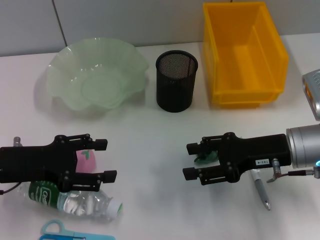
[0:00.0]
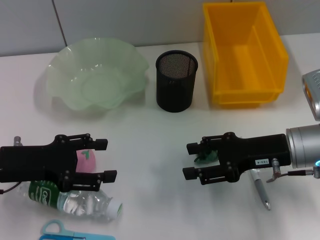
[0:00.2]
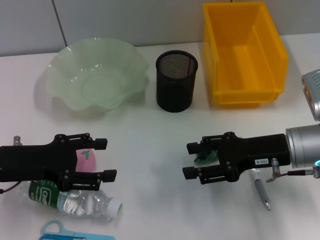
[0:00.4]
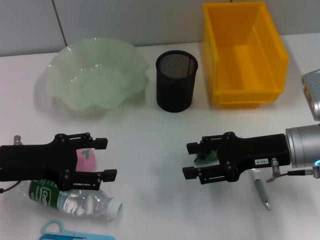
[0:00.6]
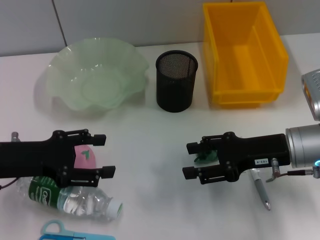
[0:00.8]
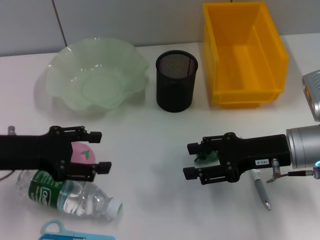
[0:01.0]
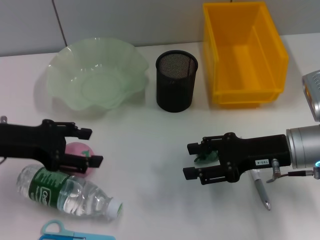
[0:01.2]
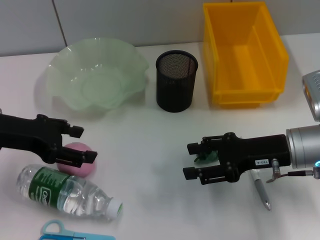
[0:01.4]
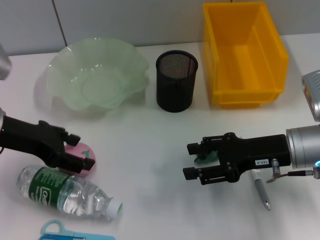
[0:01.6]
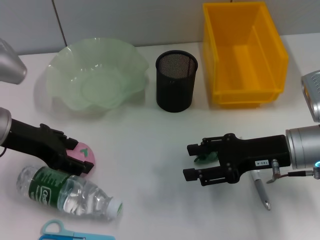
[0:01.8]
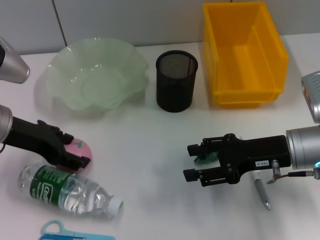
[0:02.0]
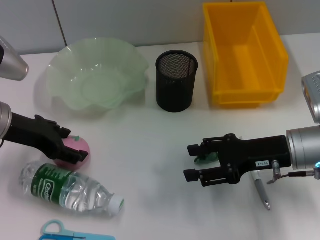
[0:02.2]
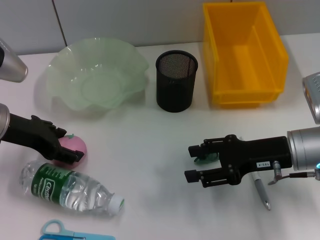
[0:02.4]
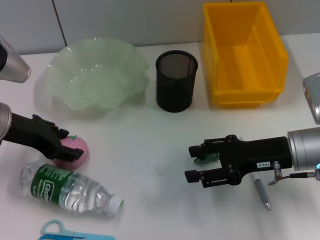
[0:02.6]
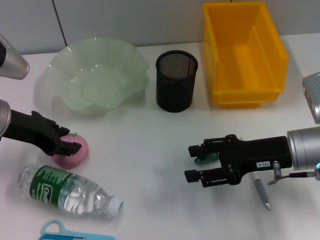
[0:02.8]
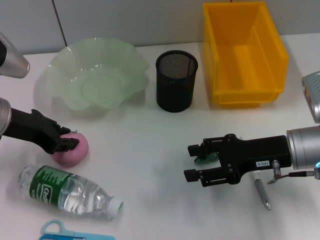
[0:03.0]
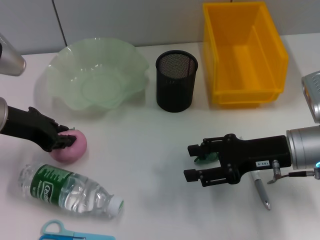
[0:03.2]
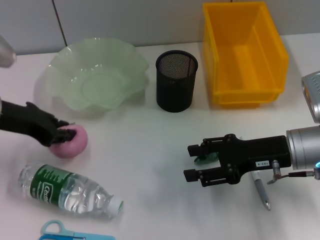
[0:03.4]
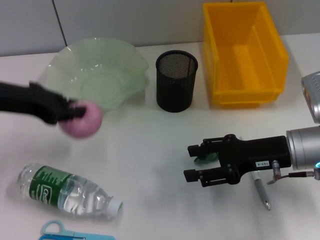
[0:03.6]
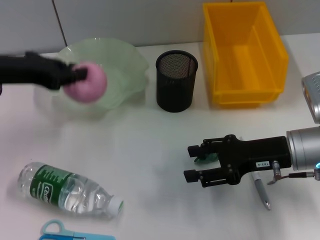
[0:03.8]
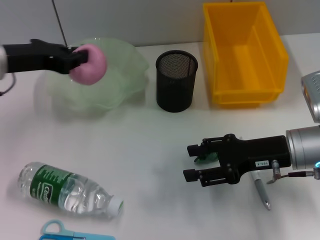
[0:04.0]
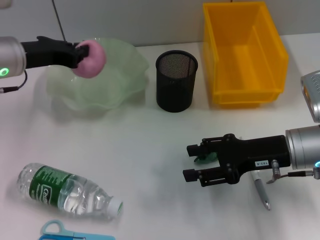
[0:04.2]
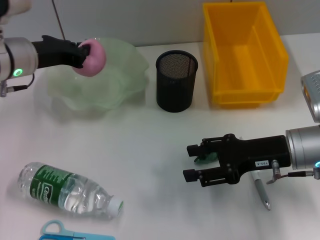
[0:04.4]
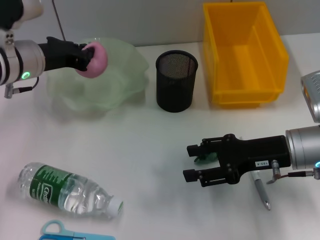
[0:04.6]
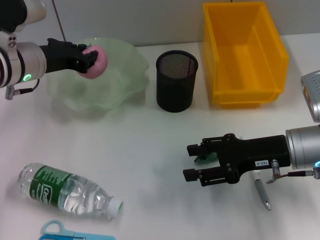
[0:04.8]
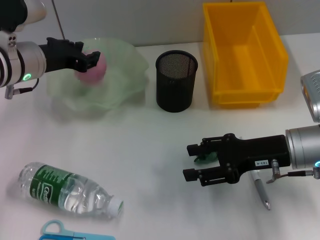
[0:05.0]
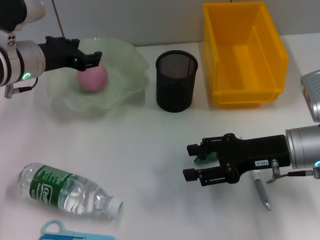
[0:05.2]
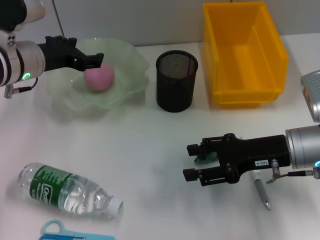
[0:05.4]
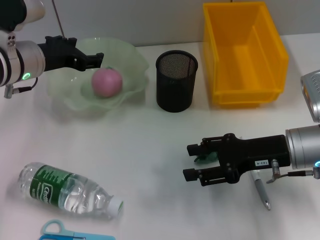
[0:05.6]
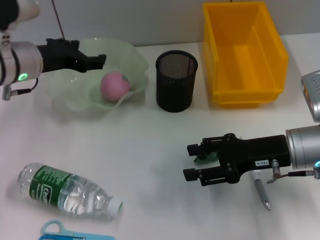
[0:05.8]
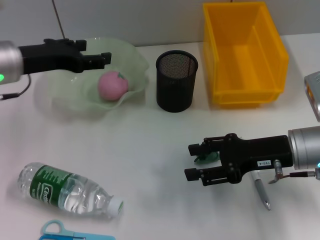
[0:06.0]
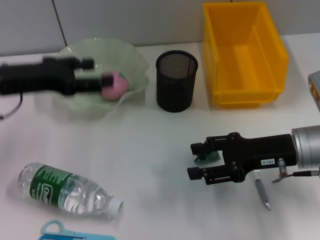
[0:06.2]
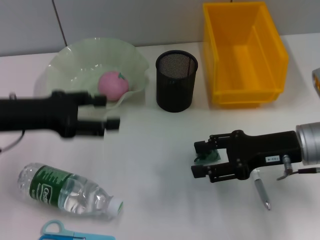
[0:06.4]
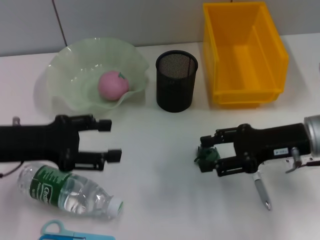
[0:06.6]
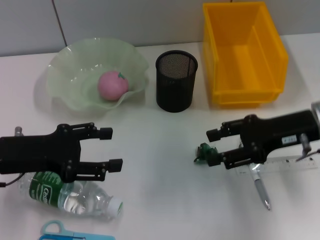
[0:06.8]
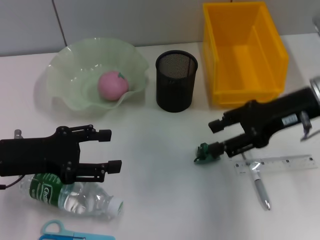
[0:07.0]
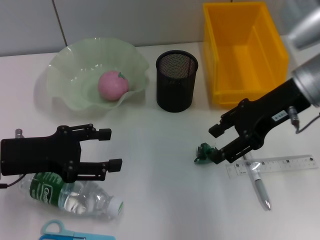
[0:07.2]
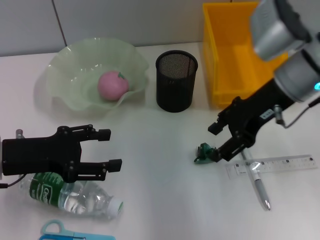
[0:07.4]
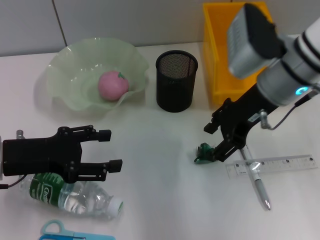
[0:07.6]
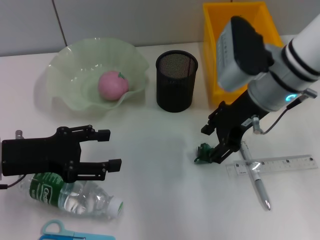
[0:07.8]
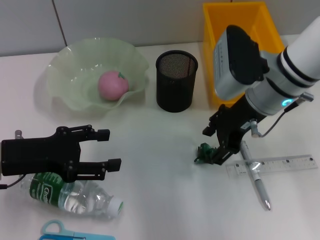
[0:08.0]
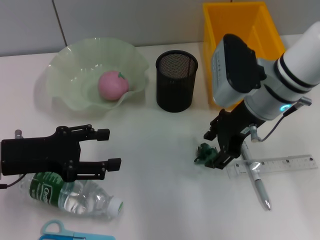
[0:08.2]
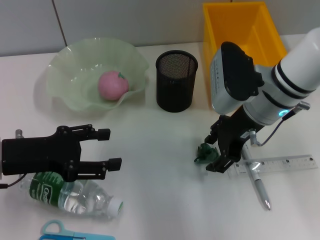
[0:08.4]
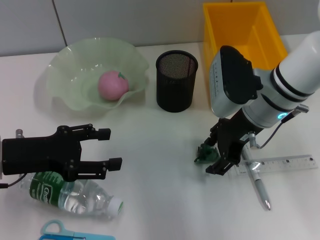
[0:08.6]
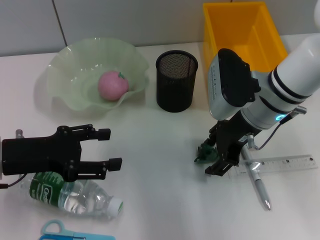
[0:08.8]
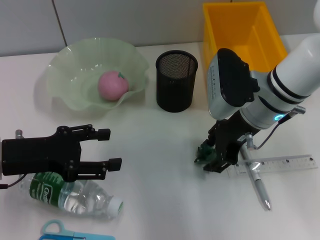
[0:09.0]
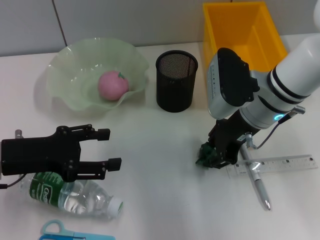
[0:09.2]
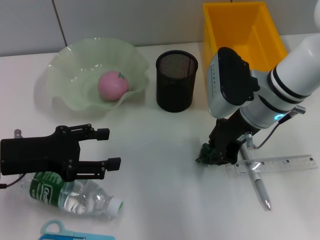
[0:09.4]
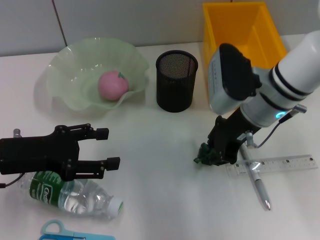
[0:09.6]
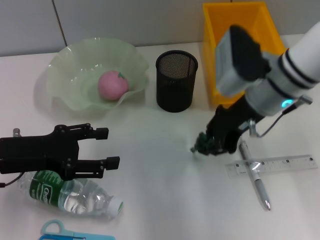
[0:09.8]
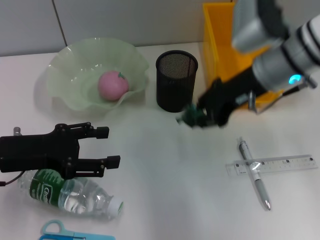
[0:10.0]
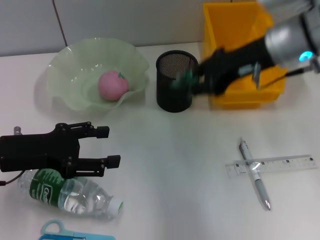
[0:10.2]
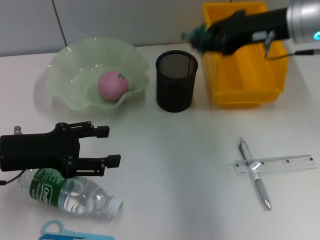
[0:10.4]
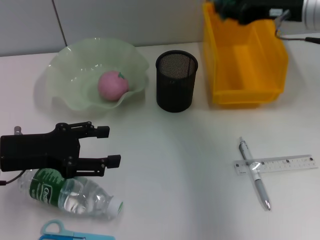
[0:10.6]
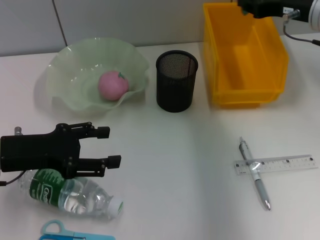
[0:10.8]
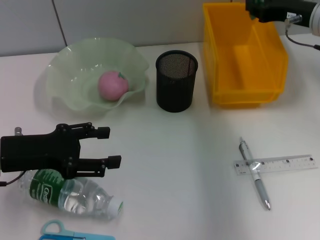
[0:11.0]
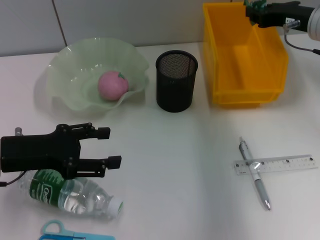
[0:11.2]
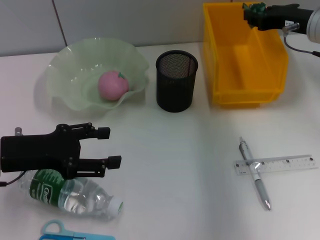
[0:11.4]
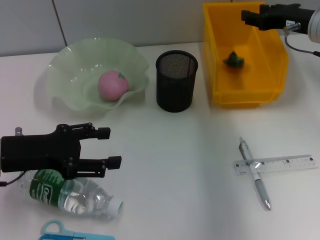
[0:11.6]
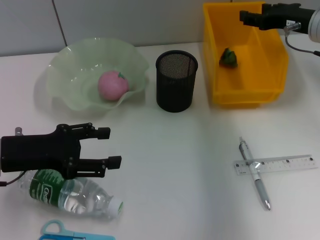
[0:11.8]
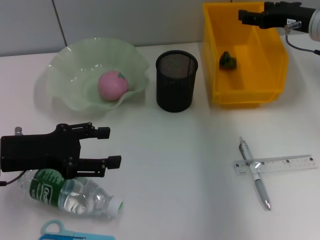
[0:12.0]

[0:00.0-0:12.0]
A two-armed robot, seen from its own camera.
Step, 0:00.0 to 0:02.8: Grab the peach with the left hand.
Step, 0:03.2 to 0:05.2: Place the peach into the fruit bowl with the left hand.
Step, 0:05.4 to 0:09.2: Grab the plastic with the right hand.
Step, 0:09.4 to 0:12.0: Place the plastic into the trash can with the right hand.
0:00.0 to 0:01.6: The left gripper moves upward, roughly 5 cm.
0:01.6 to 0:03.0: The left gripper closes.
0:03.0 to 0:04.4: The left gripper goes about 5 cm forward, and closes.
0:04.4 to 0:06.0: The left gripper opens.
0:06.0 to 0:07.6: The right gripper shifts some 15 cm upward, forward and to the left; the left gripper moves backward and downward, about 10 cm.
0:07.6 to 0:09.0: The right gripper shifts by roughly 5 cm.
0:09.0 to 0:10.4: The right gripper travels upward and to the right by approximately 10 cm, and closes its fingers.
0:10.4 to 0:12.0: The right gripper heads to the right and downward, covering about 10 cm, and opens its fingers.

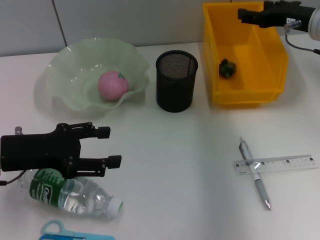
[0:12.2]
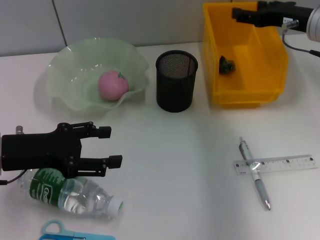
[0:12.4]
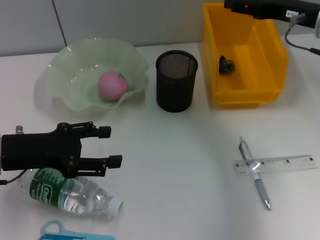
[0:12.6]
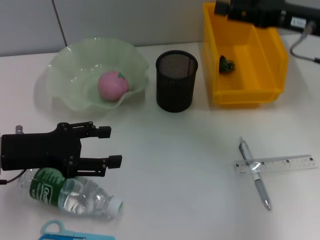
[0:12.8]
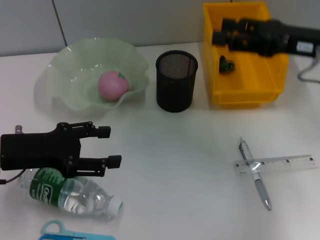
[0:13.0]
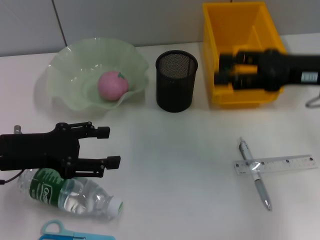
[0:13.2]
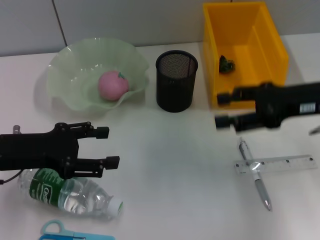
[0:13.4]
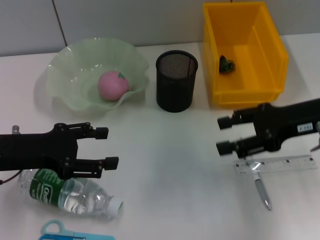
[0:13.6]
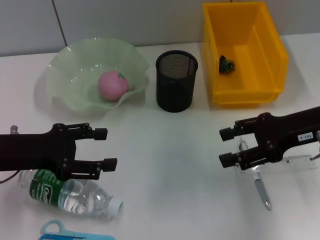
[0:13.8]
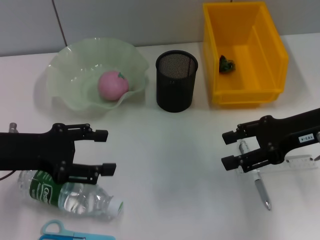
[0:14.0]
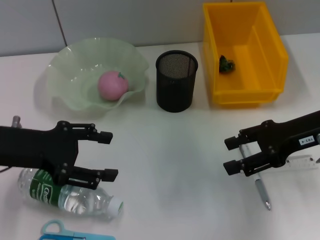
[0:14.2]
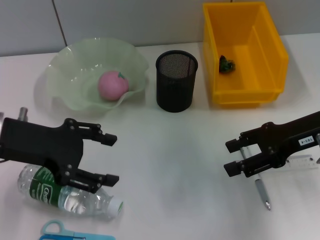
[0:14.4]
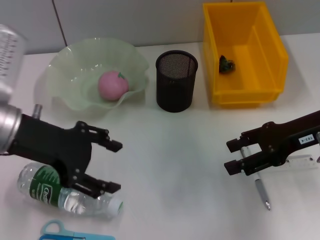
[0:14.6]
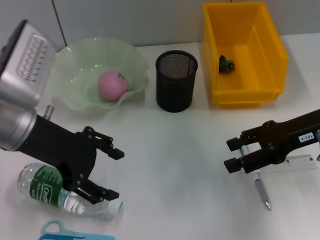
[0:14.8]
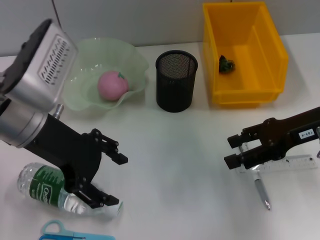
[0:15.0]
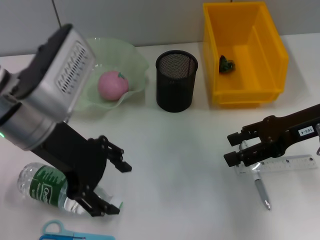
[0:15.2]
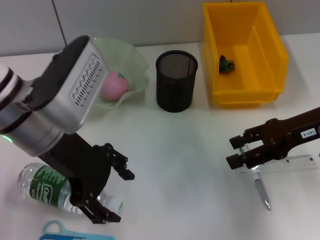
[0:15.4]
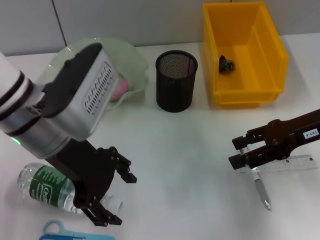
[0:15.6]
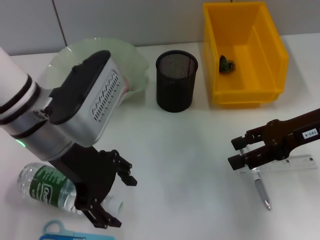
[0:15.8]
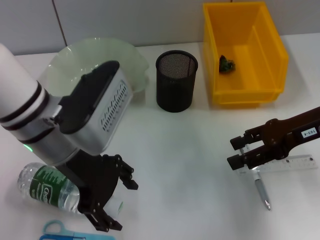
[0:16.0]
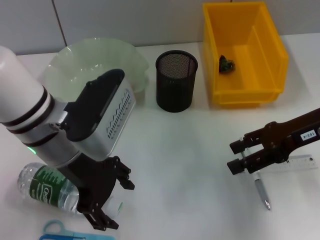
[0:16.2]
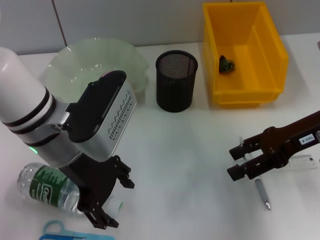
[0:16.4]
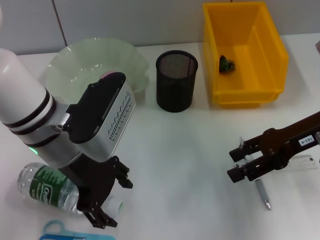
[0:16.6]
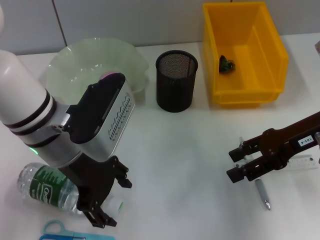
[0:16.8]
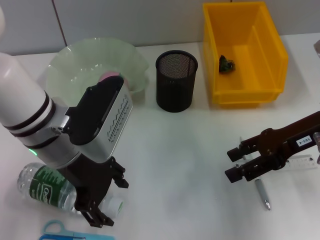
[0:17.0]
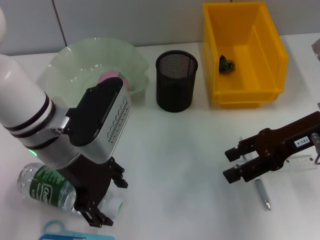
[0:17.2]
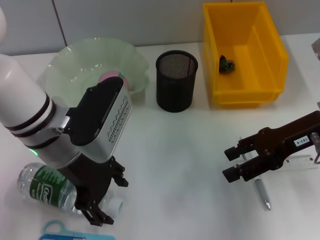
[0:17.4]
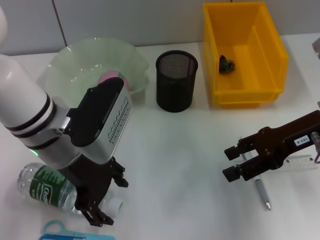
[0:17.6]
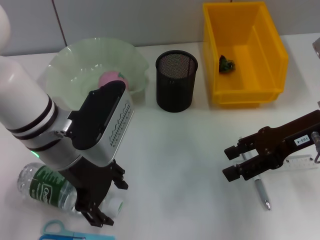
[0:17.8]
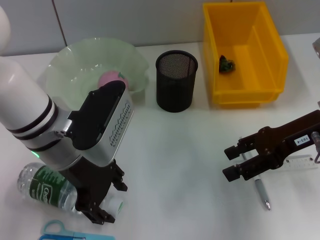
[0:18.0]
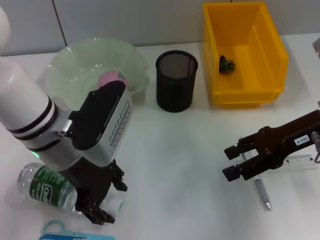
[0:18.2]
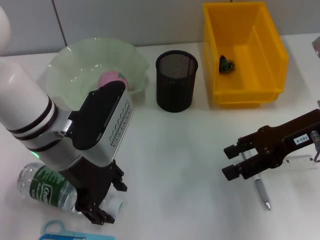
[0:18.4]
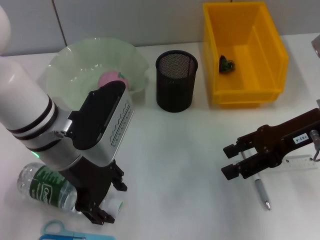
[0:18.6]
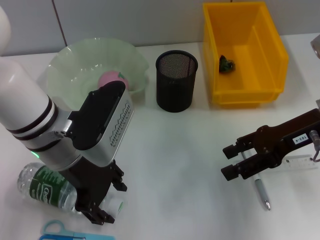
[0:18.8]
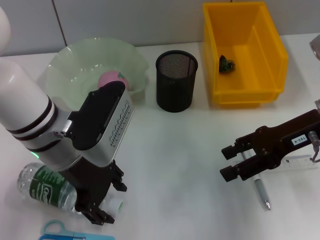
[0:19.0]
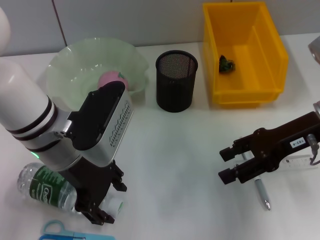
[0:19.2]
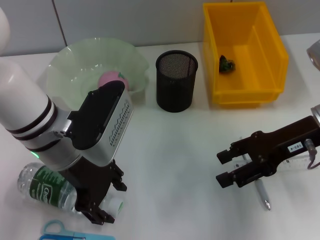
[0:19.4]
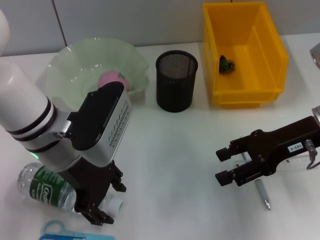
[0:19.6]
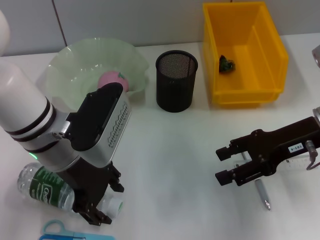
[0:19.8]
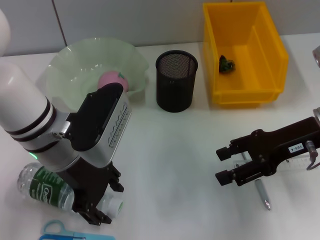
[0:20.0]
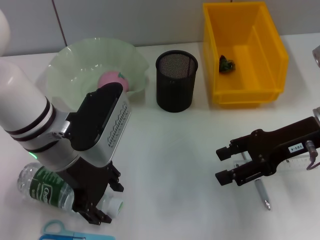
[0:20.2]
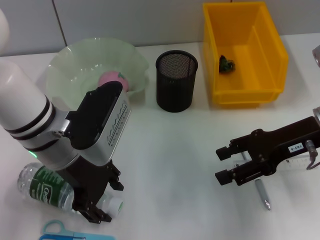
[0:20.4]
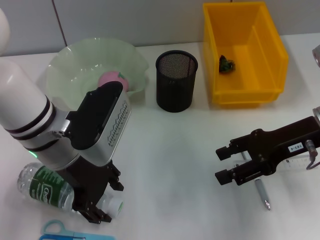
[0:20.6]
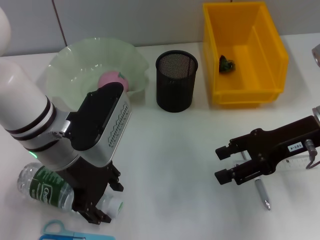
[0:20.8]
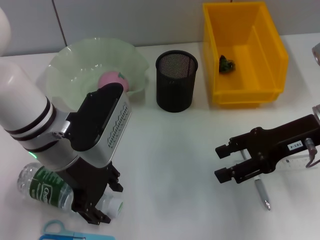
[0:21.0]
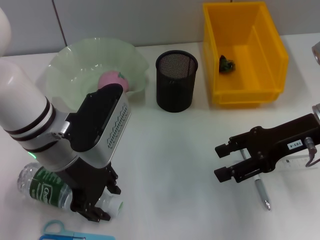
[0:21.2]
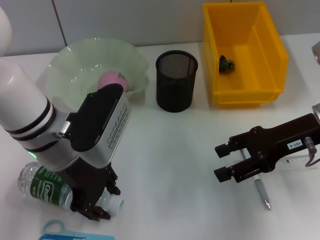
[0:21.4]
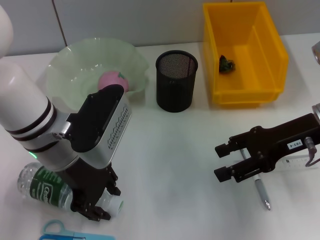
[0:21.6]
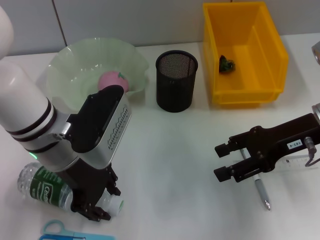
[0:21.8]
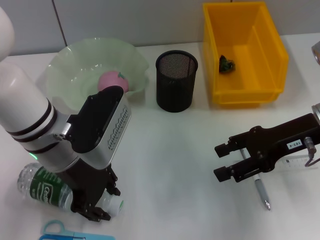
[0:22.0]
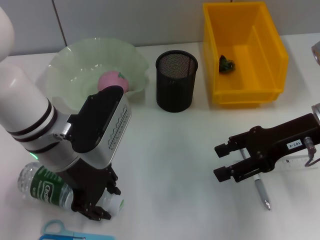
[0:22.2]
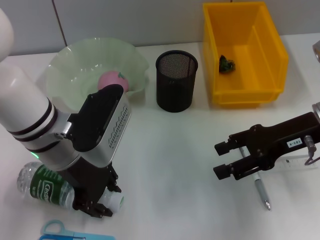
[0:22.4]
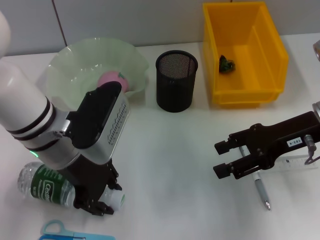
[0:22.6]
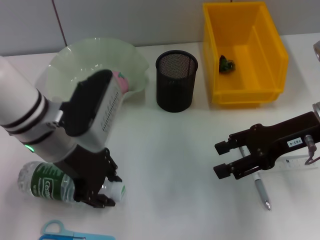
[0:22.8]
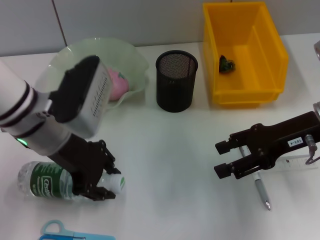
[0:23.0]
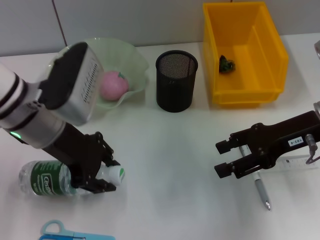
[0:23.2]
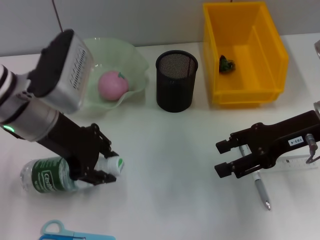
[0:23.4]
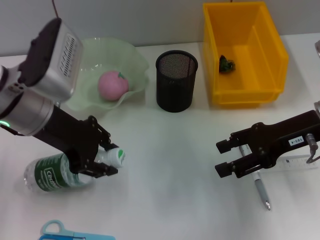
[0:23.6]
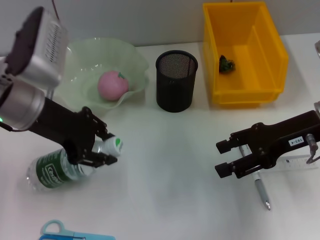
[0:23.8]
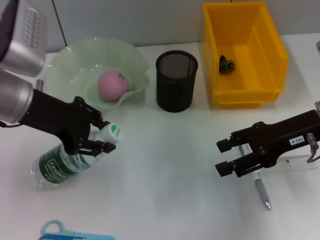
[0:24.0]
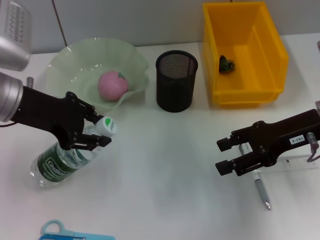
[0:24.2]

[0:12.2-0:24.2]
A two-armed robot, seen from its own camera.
Step, 0:12.2 to 0:22.2: Grab the water bottle with the left hand.
0:12.2 to 0:13.8: The right gripper travels backward by roughly 10 cm.
0:13.8 to 0:15.2: The left gripper is displaced to the right and upward by about 15 cm.
0:15.2 to 0:19.8: There are only small adjustments of the grippers.
0:19.8 to 0:22.6: The two grippers keep their place.
0:22.6 to 0:24.2: The left gripper is displaced to the left by roughly 10 cm.
